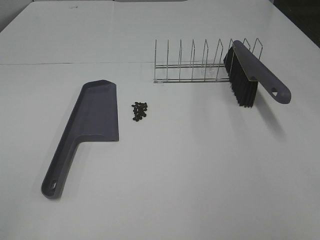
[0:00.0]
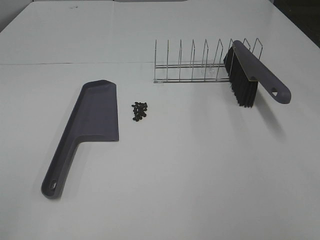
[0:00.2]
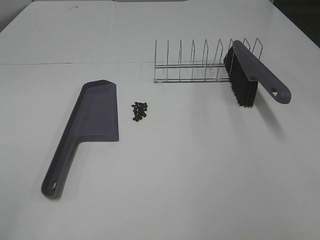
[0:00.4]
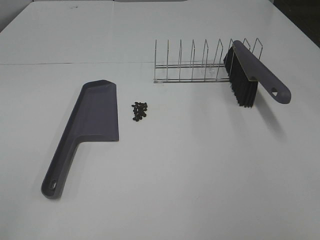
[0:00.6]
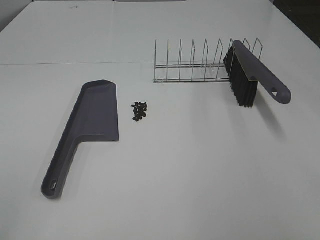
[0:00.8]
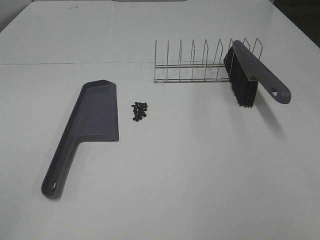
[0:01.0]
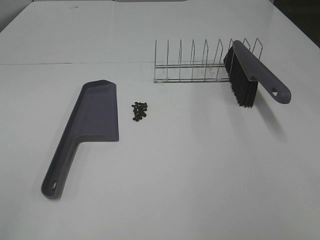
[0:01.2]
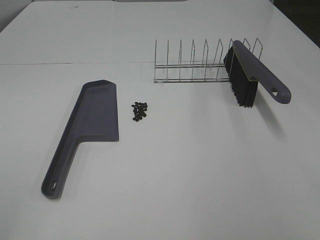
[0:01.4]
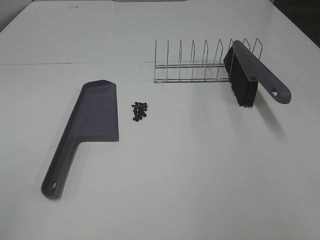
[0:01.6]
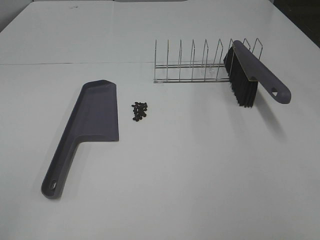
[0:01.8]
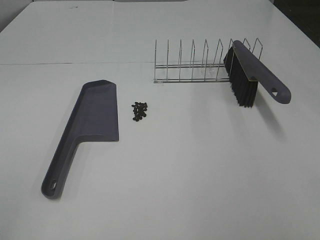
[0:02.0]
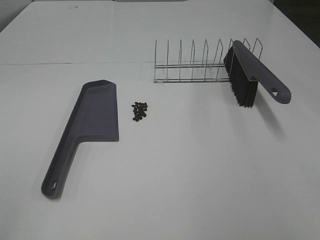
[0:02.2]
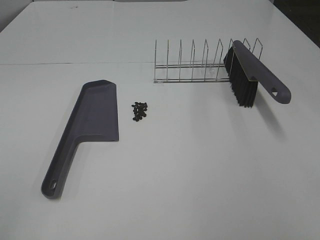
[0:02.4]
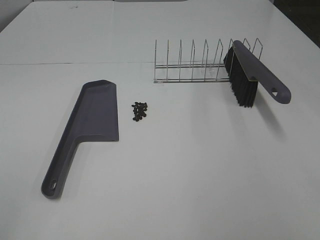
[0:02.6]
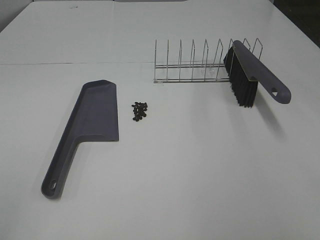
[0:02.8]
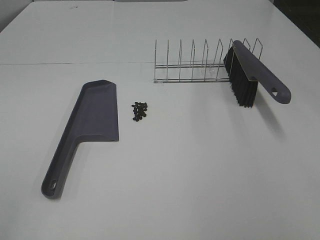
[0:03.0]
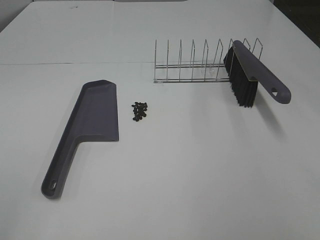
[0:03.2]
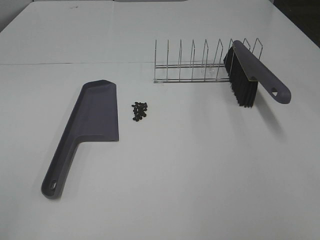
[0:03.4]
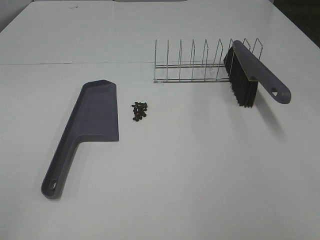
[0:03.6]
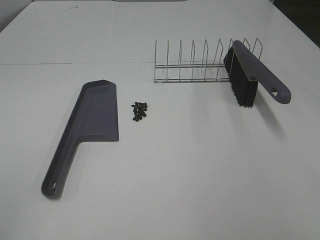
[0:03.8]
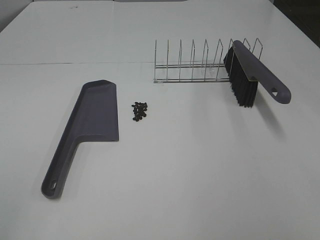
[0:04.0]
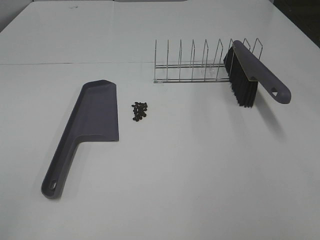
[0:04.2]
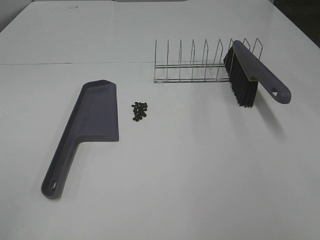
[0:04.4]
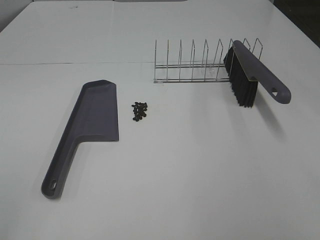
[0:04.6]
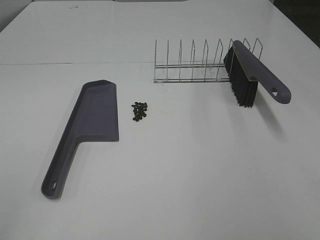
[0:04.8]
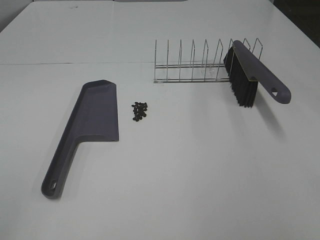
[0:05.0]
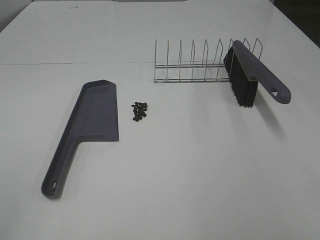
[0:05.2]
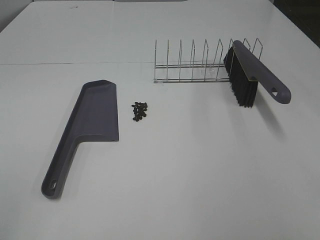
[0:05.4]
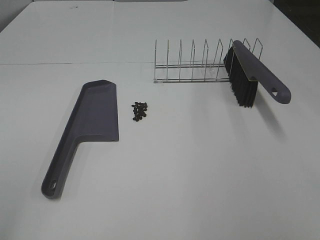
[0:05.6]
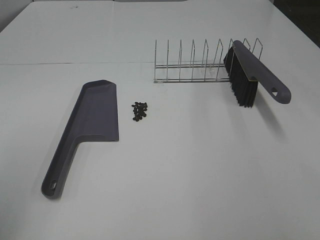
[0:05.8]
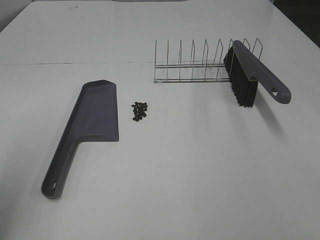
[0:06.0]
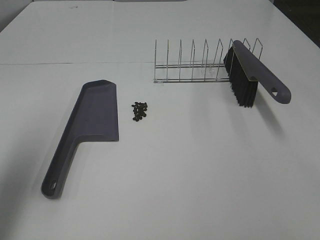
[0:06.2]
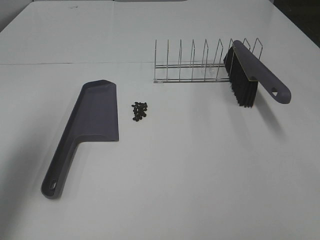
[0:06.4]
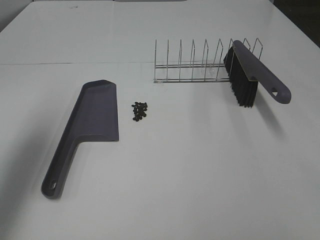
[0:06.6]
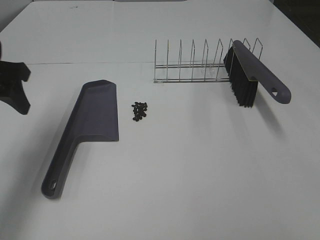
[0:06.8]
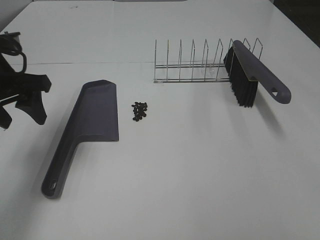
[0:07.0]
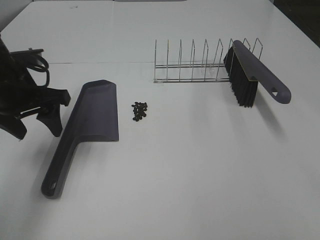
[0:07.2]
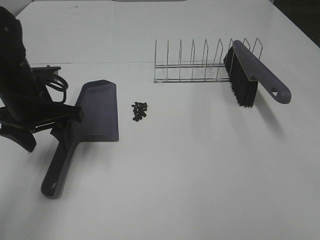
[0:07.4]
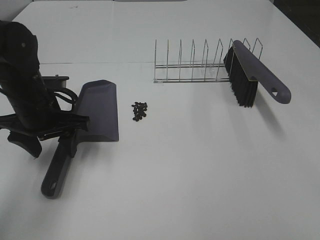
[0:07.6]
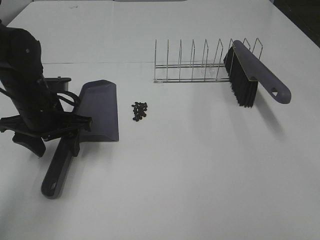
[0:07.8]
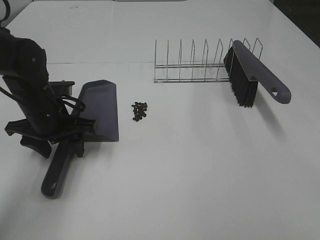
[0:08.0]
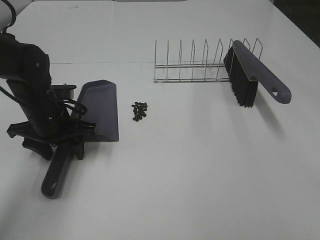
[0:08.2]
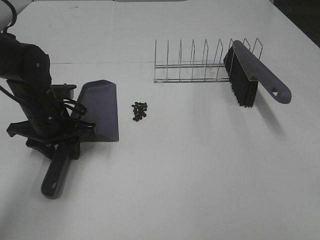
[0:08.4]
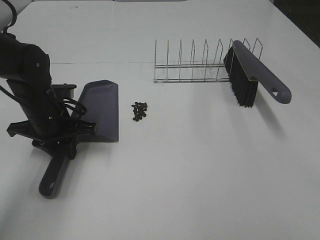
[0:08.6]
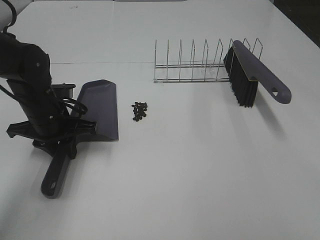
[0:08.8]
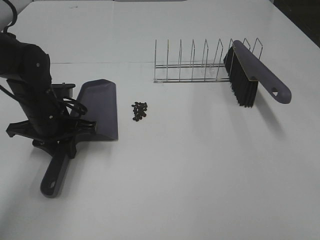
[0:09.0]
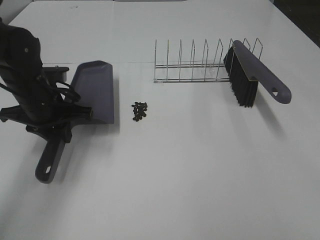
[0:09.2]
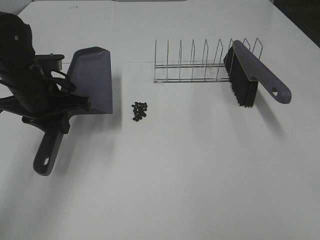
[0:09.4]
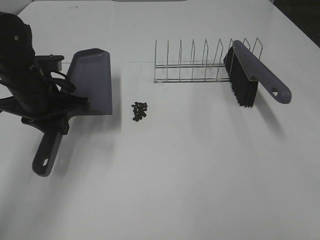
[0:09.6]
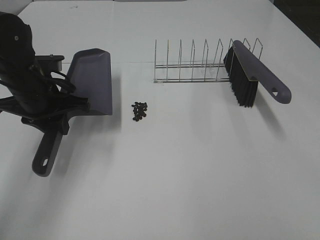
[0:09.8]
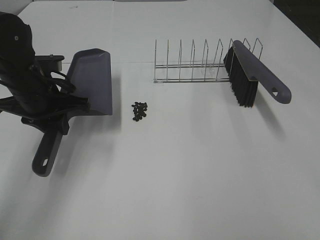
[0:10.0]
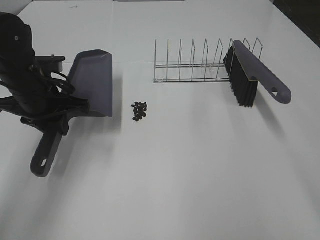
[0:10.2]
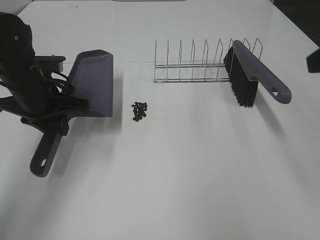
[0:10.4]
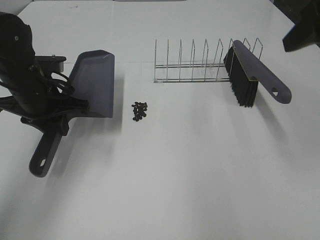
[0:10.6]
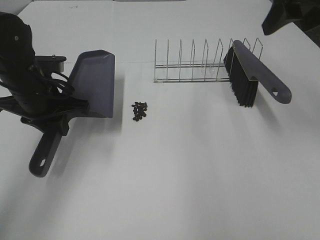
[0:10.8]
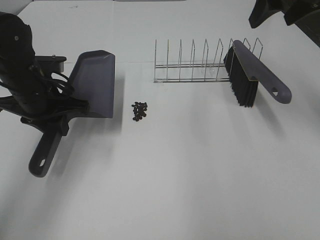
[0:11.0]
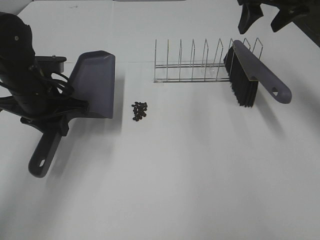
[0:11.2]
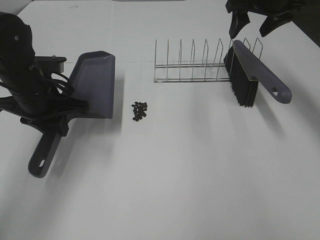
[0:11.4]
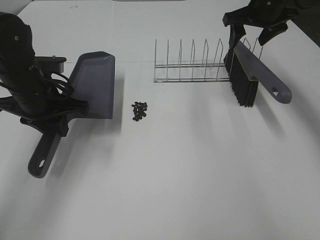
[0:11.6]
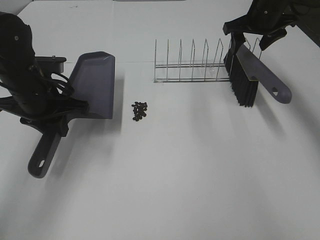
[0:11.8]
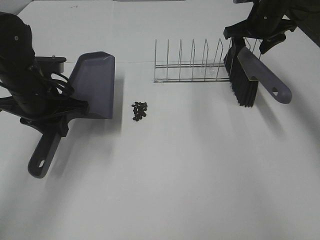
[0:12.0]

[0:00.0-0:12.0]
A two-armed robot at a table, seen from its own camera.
Task of the whole recording: Sweep Coffee Bean.
Step, 0:00.0 to 0:08.6: Left hand: grab the dustpan.
0:00.0 to 0:04.4: Both grippers stay about where they are.
0:04.4 to 0:06.0: The left gripper moves forward, some 15 cm.
0:06.0 to 0:07.6: The left gripper heads downward, forward and to the right, covering approximately 30 cm.
0:07.6 to 0:09.0: The left gripper closes up.
0:09.0 to 0:10.4: The right gripper is displaced forward by some 25 cm.
0:10.4 to 0:12.0: The right gripper is displaced forward and downward by some 30 cm.

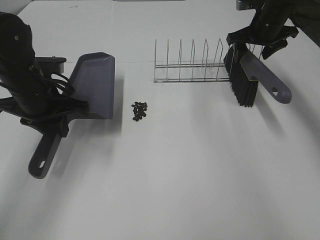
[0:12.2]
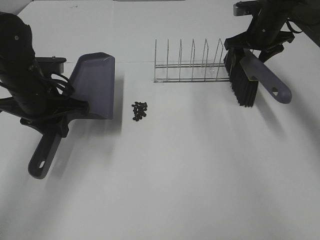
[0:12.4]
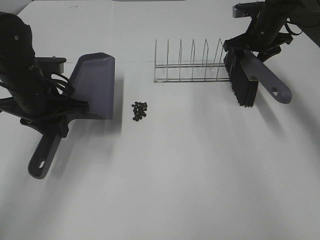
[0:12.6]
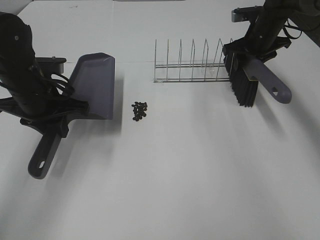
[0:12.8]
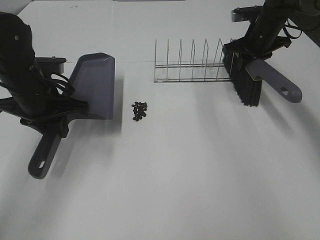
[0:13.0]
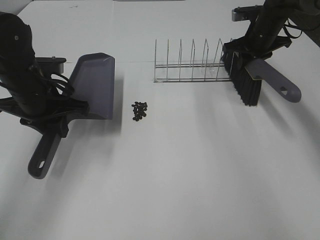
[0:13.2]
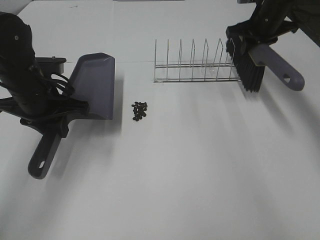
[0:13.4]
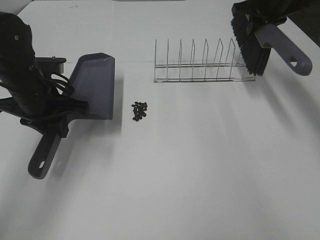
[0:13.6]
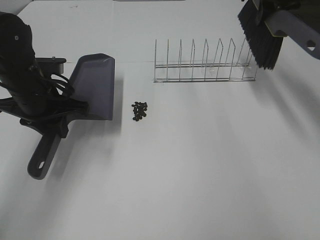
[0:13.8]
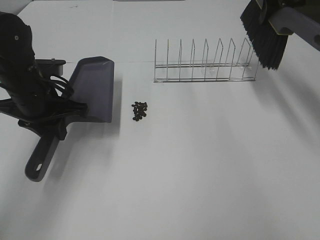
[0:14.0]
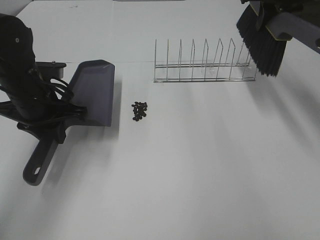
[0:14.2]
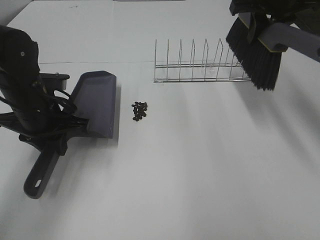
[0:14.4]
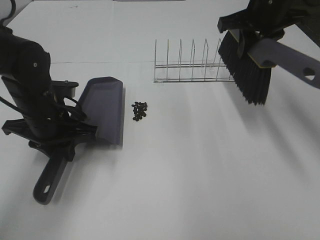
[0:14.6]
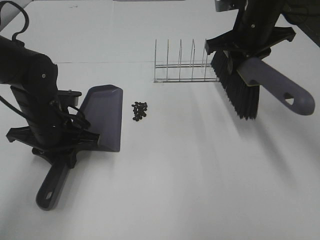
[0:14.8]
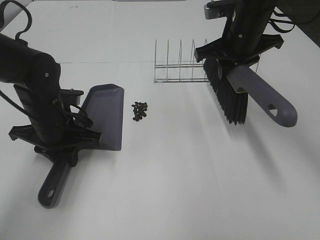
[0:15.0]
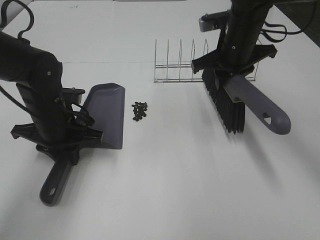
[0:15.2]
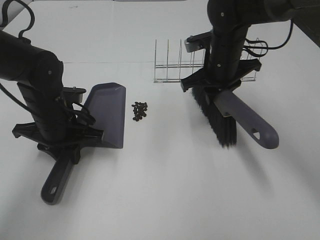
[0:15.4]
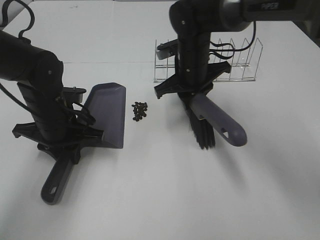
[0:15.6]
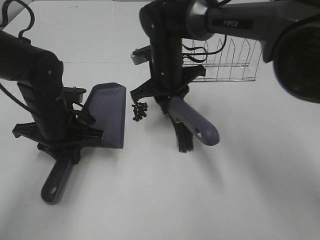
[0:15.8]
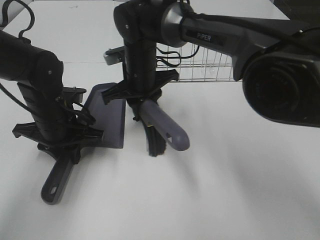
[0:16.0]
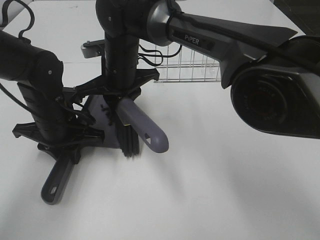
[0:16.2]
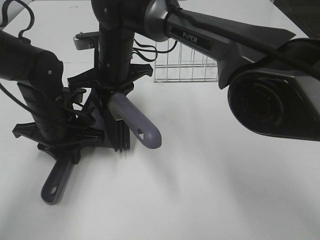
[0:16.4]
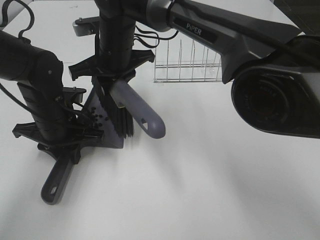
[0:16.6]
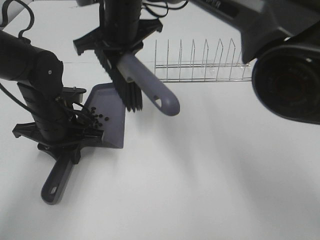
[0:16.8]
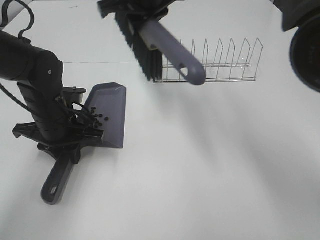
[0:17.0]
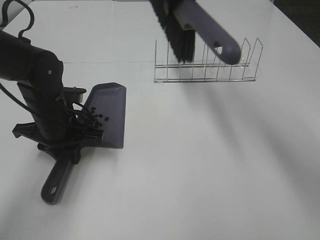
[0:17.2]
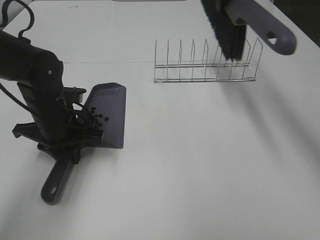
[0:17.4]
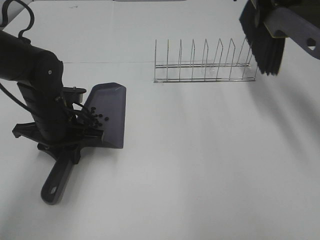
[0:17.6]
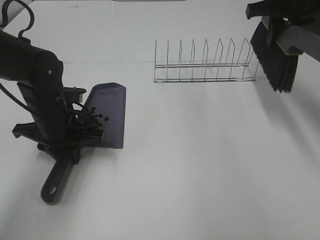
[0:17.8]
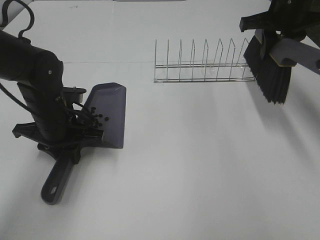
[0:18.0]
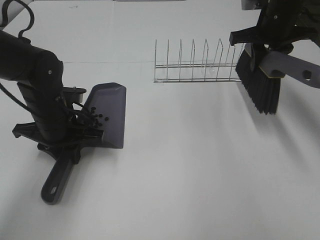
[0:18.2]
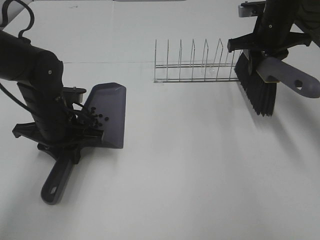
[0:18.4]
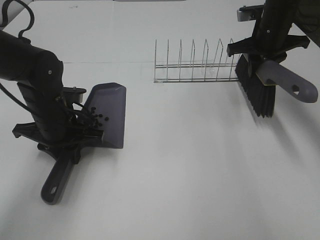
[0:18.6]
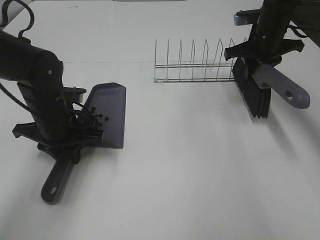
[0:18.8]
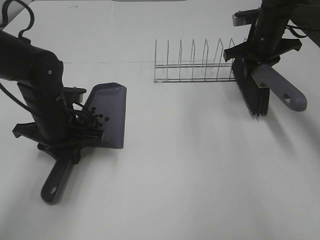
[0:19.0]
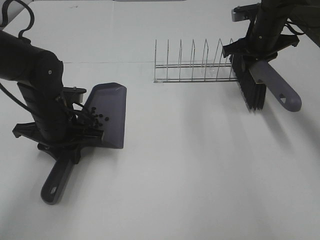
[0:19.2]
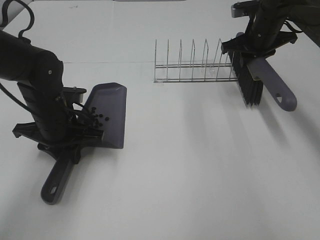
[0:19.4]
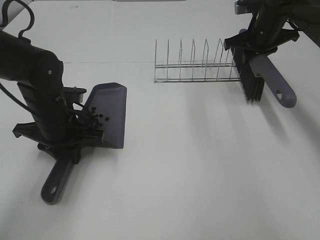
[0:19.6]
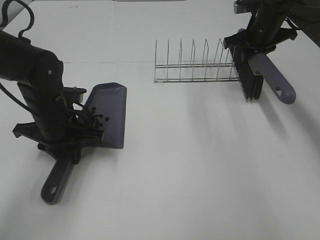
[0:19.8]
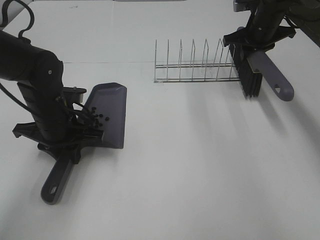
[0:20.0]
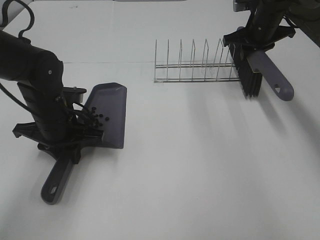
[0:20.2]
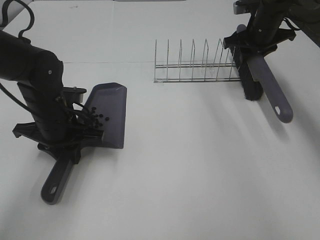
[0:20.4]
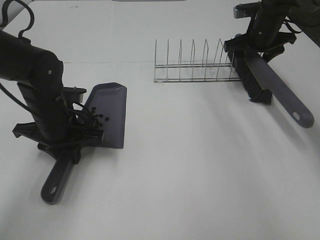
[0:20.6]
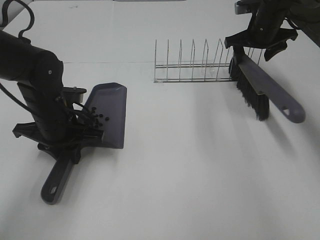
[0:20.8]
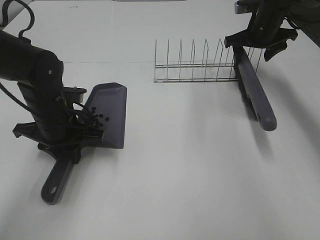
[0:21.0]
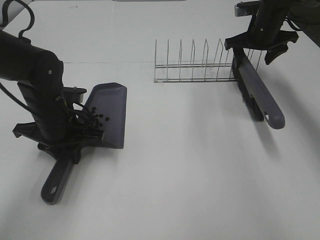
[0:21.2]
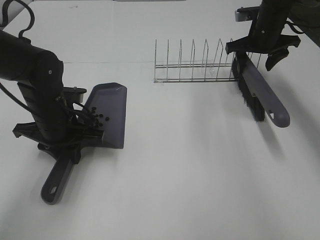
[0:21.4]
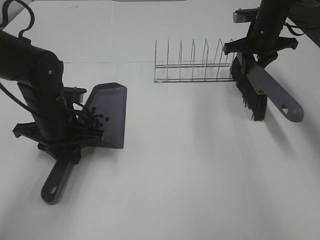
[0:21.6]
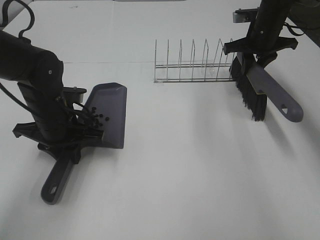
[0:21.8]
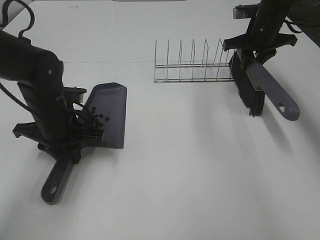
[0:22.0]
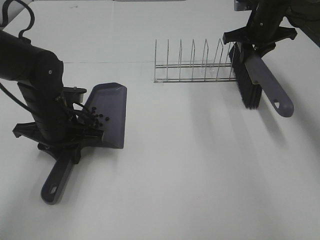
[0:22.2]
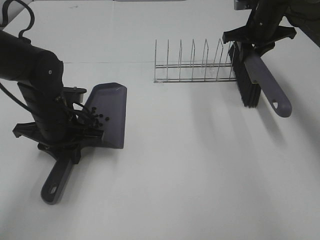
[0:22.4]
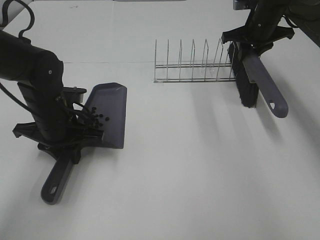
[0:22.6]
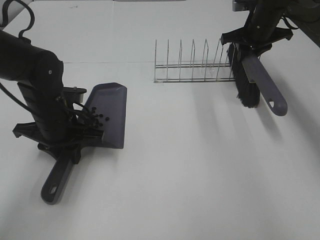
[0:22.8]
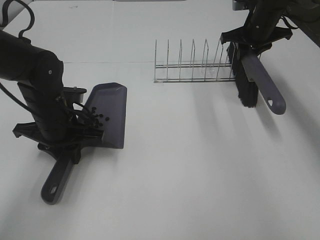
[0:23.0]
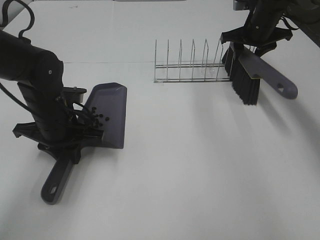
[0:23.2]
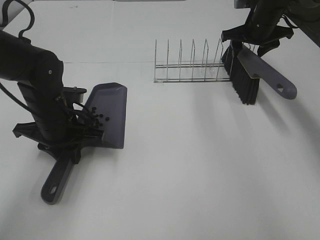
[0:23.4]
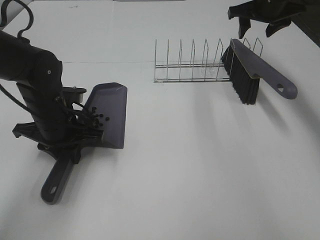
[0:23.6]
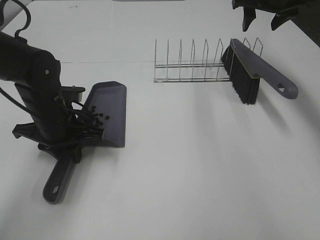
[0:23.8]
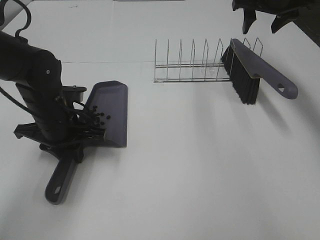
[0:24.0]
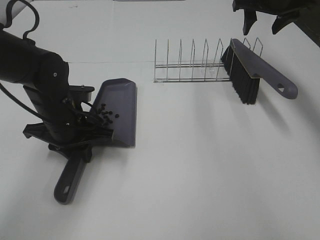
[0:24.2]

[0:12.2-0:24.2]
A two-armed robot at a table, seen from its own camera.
Task of the whole recording: Sweep Coffee Bean.
Step, 0:12.2 to 0:15.0: Left hand: move the dustpan to the left side of the coffee beans.
Step, 0:13.0 to 0:16.6: Right hand:sweep the coffee beans into the dustpan.
Step, 0:16.8 to 0:23.4: Right hand:place the broom on the rack.
0:12.2 to 0:13.8: The right gripper is displaced upward by about 10 cm, and closes.
0:13.8 to 0:15.2: The left gripper travels downward by approximately 5 cm, while the right gripper is displaced downward, to the left and backward by roughly 20 cm.
0:15.2 to 0:16.6: The right gripper travels to the left by some 20 cm.
0:16.6 to 0:18.2: The right gripper is displaced to the right by roughly 30 cm.
0:18.2 to 0:19.8: The right gripper heads forward, covering approximately 5 cm.
0:19.8 to 0:21.2: The right gripper opens its fingers.
0:21.2 to 0:22.6: The right gripper closes.
0:22.6 to 0:24.2: The right gripper shifts some 10 cm upward, and opens its fingers.
